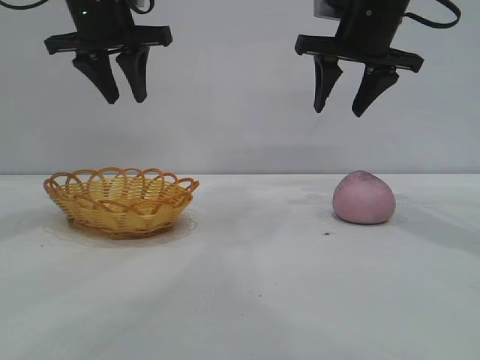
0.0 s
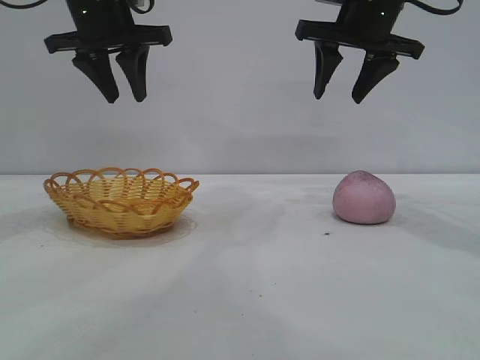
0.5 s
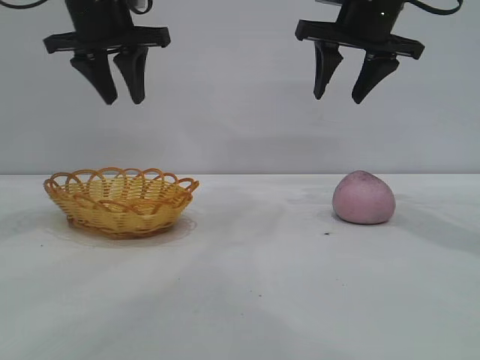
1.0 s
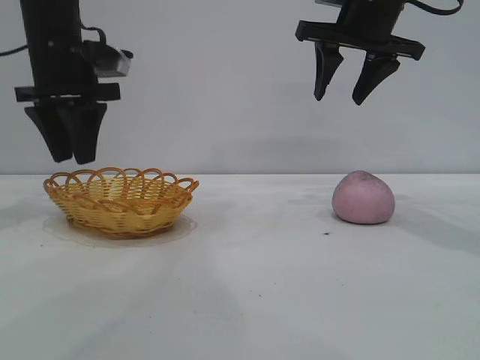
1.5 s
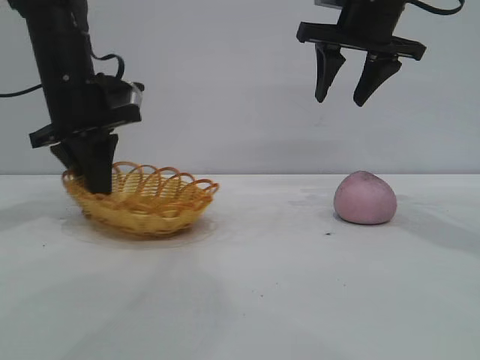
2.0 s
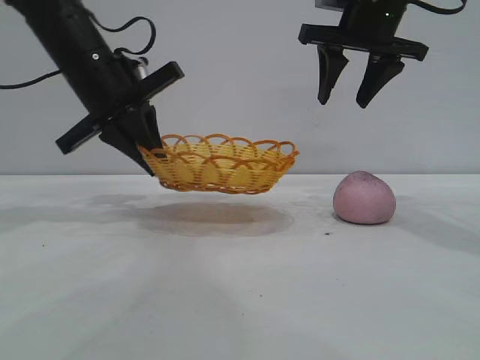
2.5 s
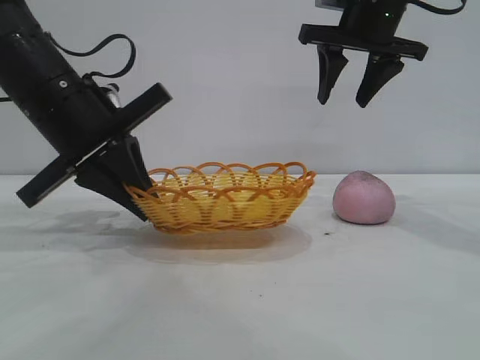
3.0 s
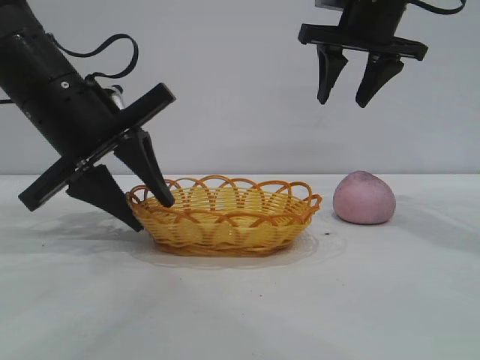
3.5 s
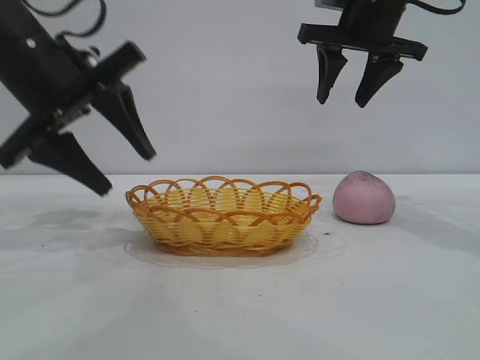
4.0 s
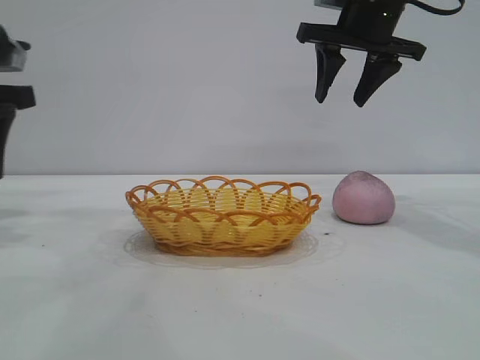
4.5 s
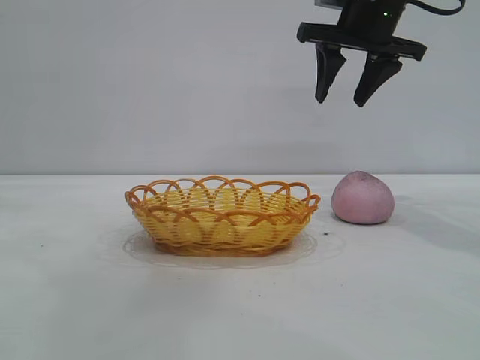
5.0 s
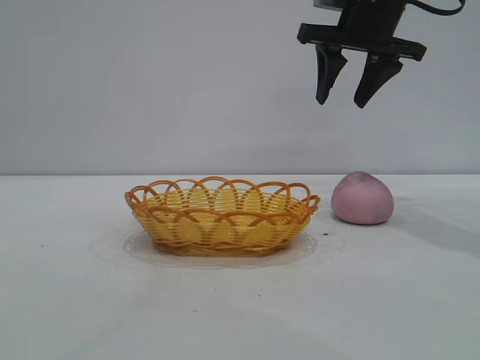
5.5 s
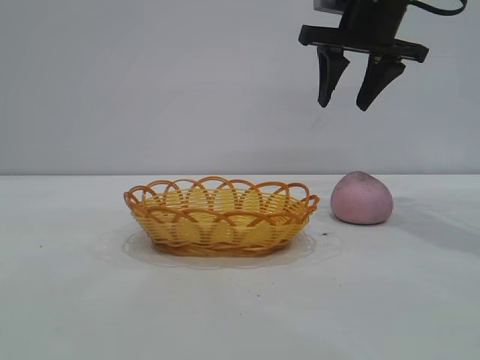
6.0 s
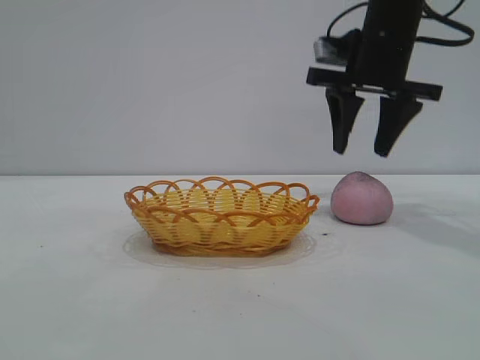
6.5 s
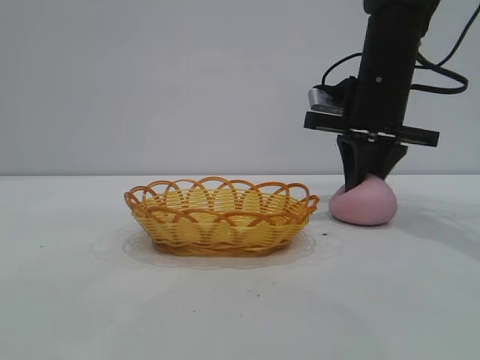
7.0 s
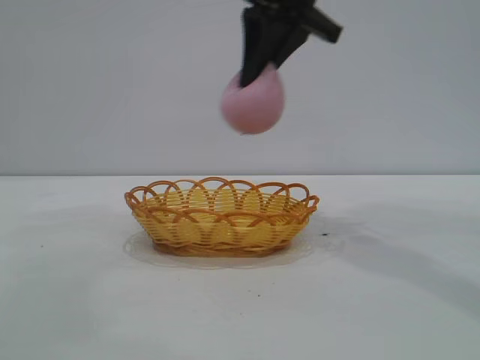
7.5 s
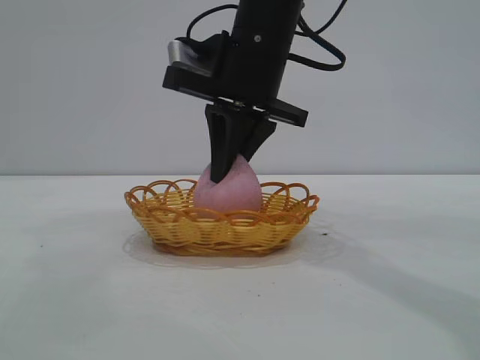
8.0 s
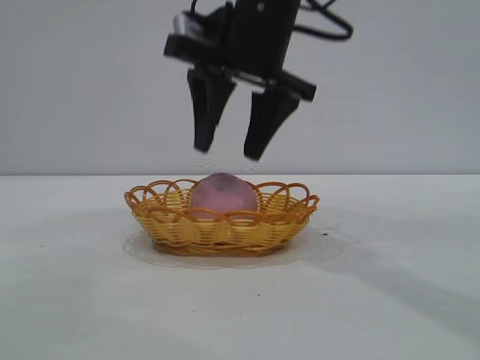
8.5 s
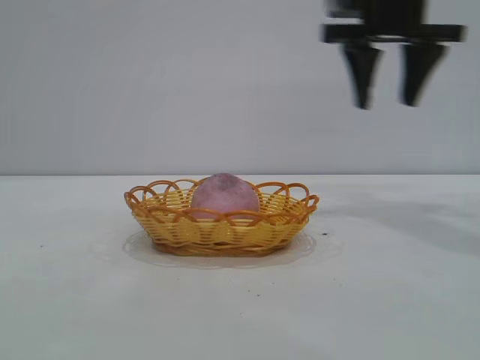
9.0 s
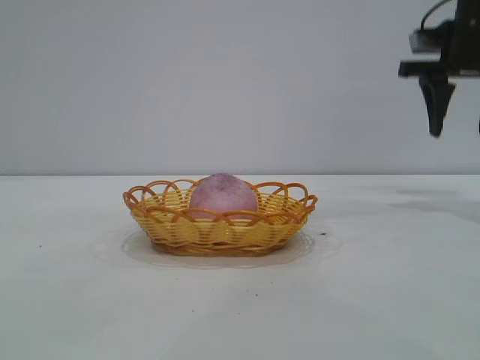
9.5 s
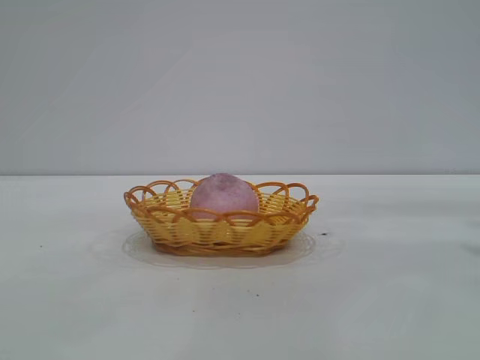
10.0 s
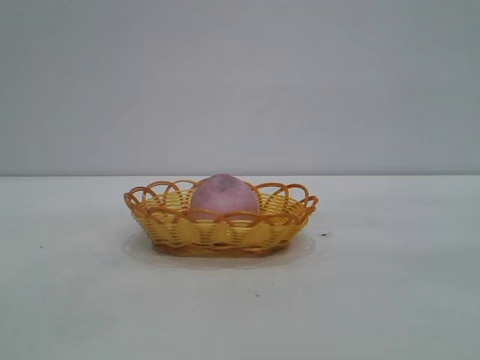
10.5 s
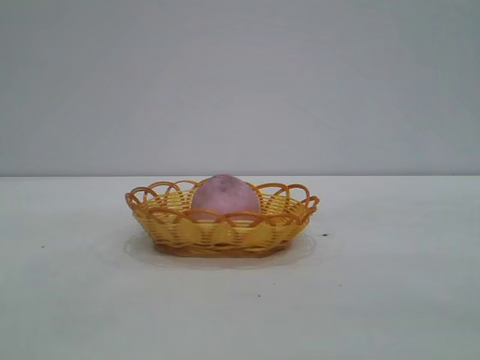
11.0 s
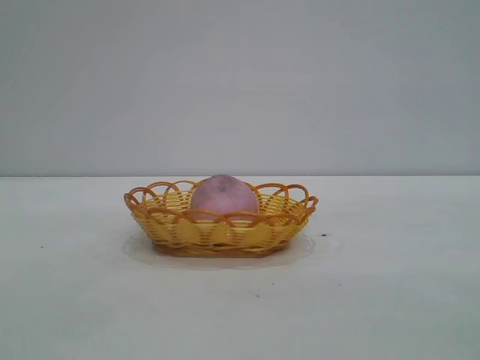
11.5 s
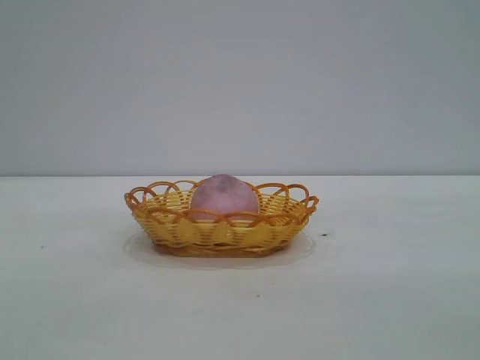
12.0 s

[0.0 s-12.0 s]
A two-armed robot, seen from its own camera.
Task of the whole recording: pick up the peach and put it into the basket.
Step, 0.0 to 3.5 s: Move the basket to the center of view.
Step, 4.5 to 7.0 s: Pick up the peach.
Step, 7.5 to 8.5 s: place the peach into the basket.

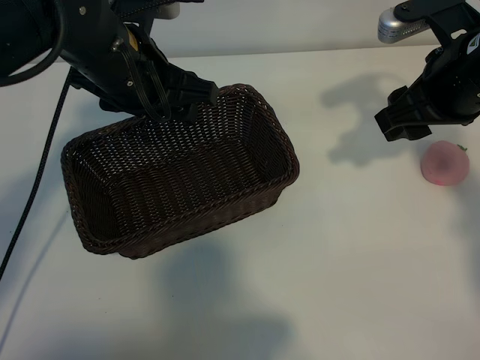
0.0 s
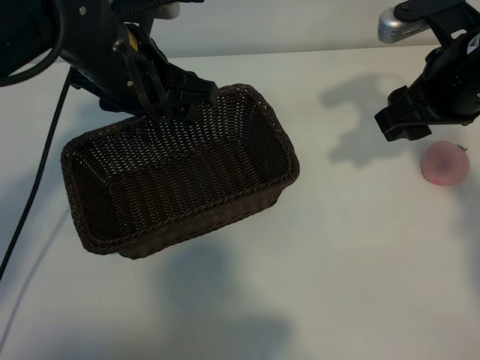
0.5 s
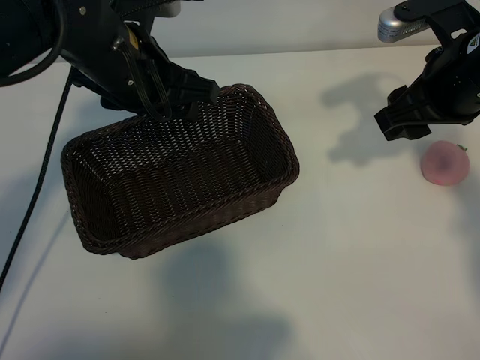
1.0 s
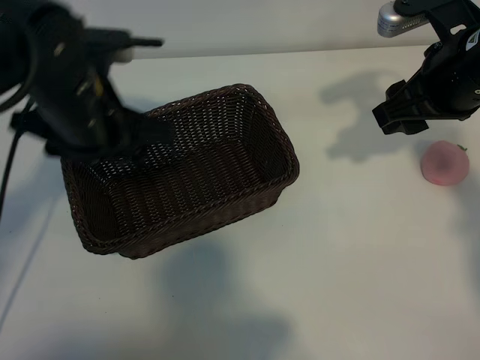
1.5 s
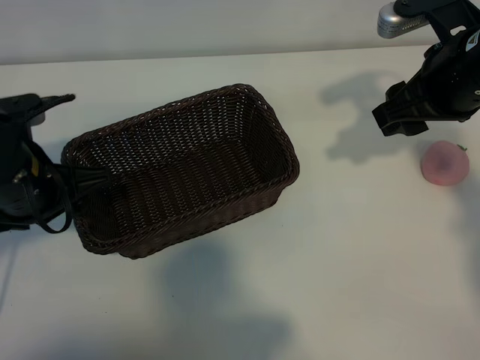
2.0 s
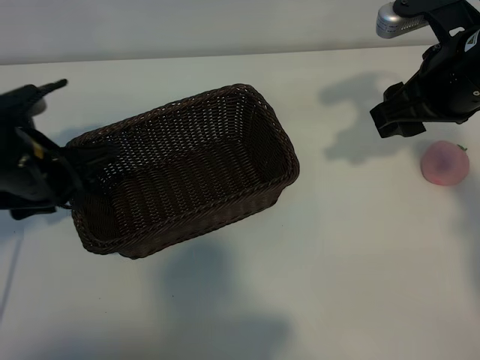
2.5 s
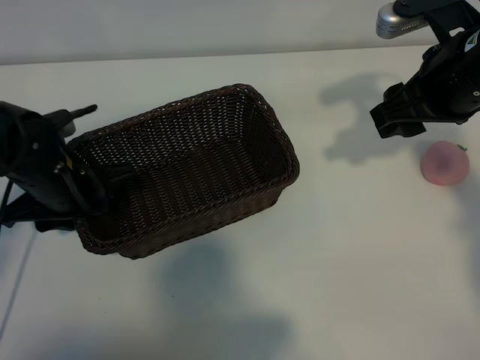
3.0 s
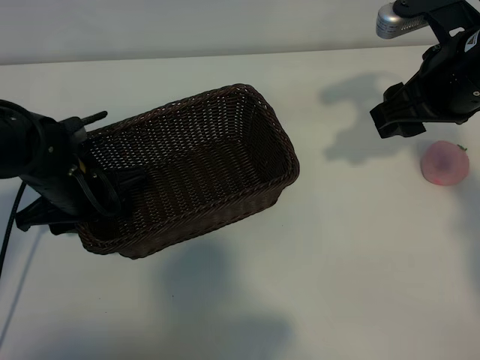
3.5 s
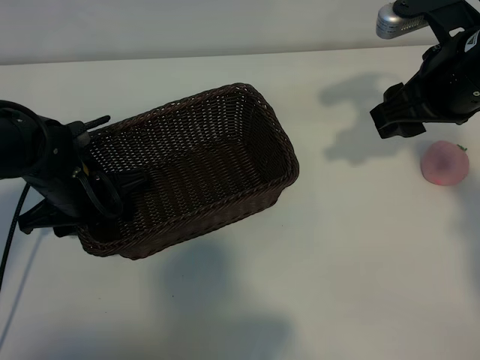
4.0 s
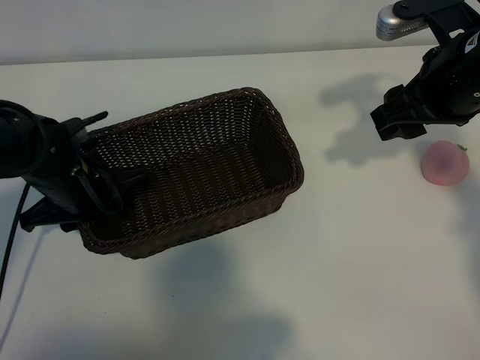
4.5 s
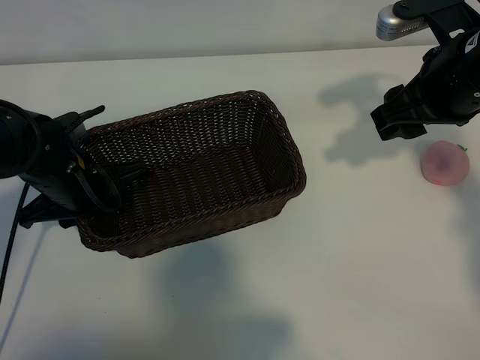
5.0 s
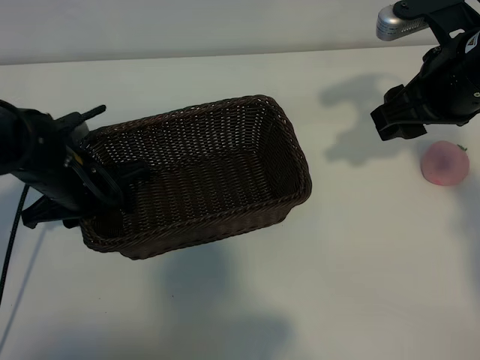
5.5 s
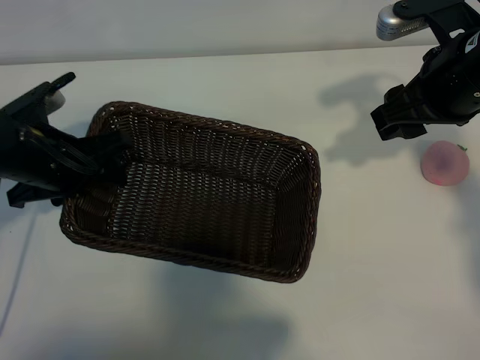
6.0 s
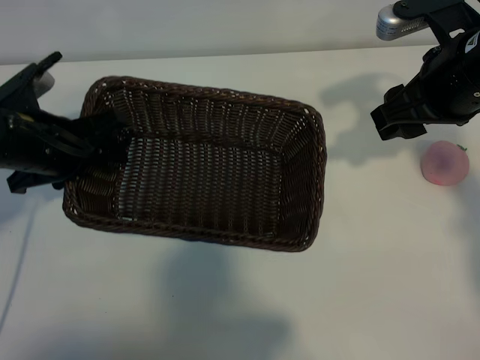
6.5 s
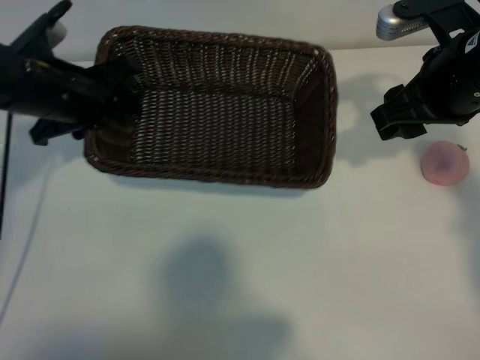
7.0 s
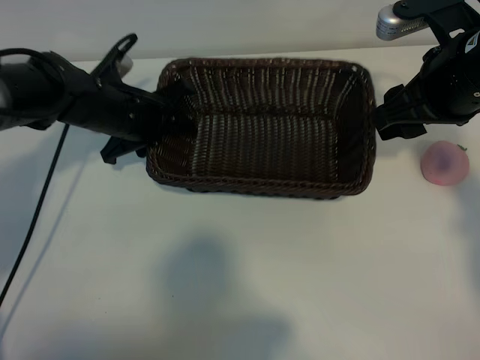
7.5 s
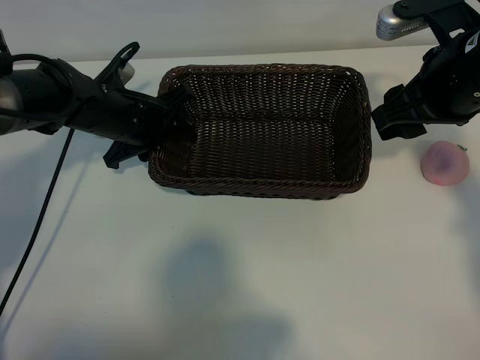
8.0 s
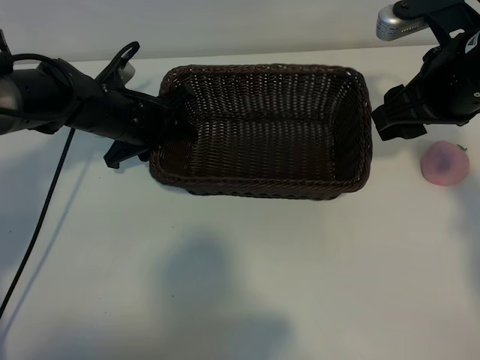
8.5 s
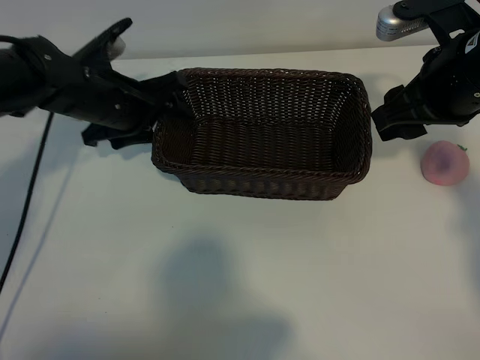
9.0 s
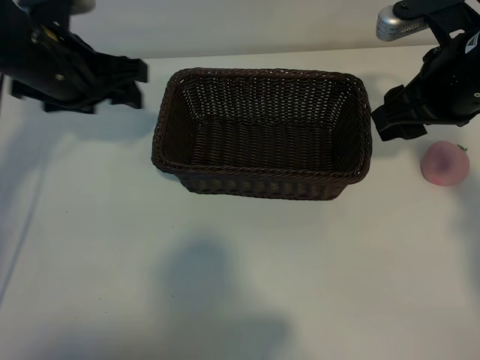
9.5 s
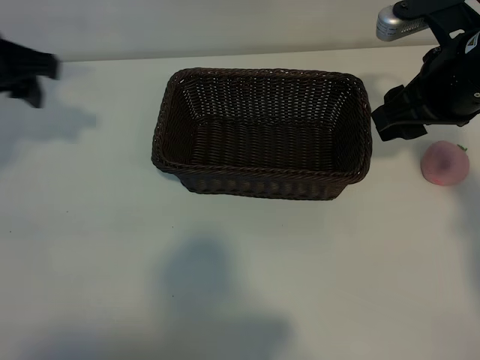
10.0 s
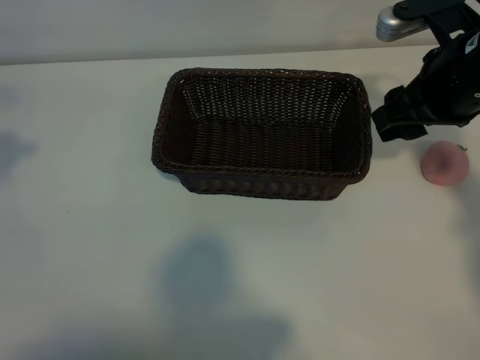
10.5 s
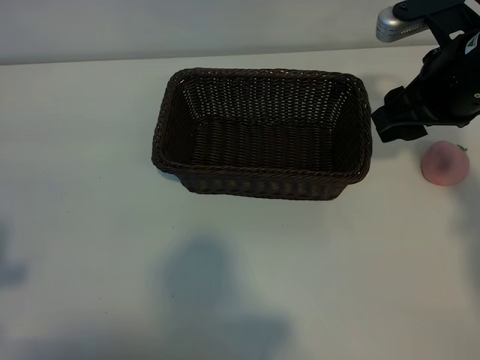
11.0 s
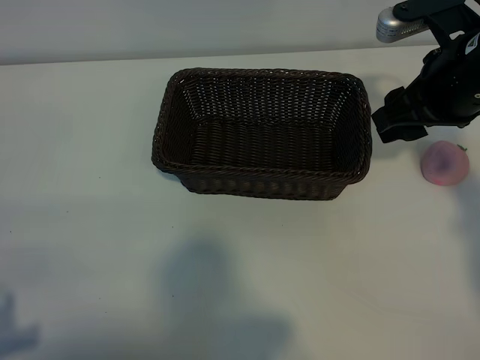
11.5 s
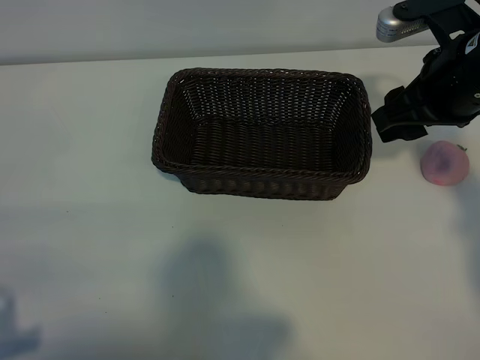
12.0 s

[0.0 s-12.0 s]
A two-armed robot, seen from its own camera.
Task of the whole recording: pick up the peach and put it into the basket.
Step, 1.0 to 4.5 s: Grasp the basket with left gripper.
Step, 5.0 to 9.0 s: Place the basket in the center of view with left gripper.

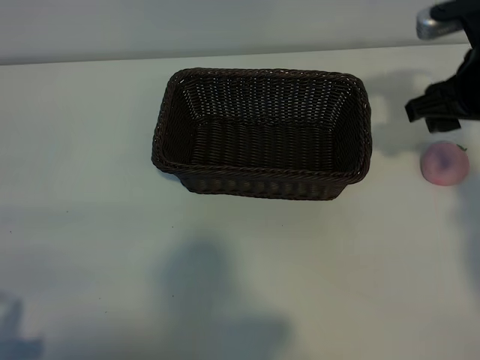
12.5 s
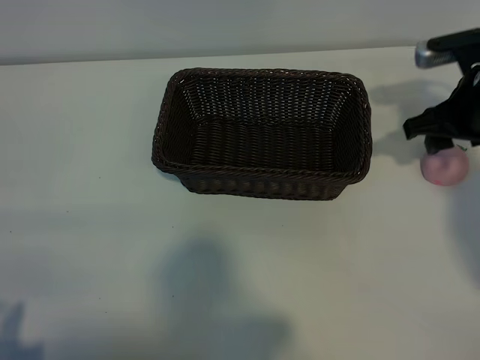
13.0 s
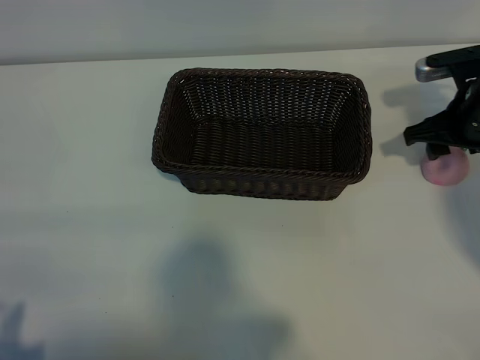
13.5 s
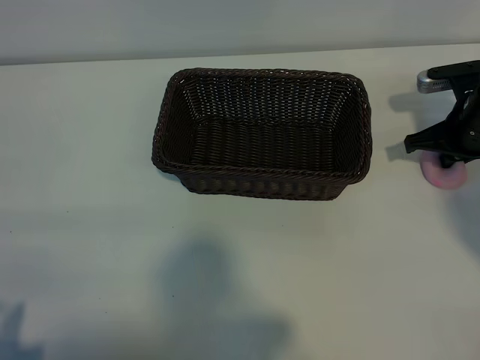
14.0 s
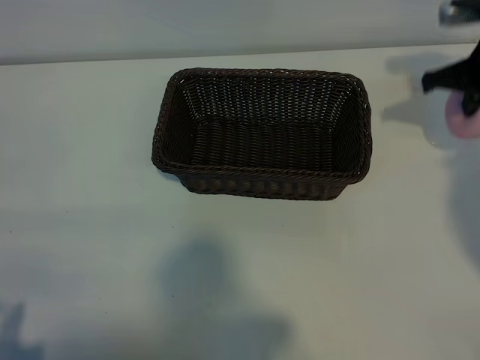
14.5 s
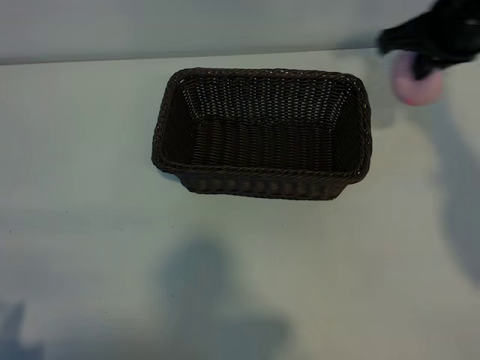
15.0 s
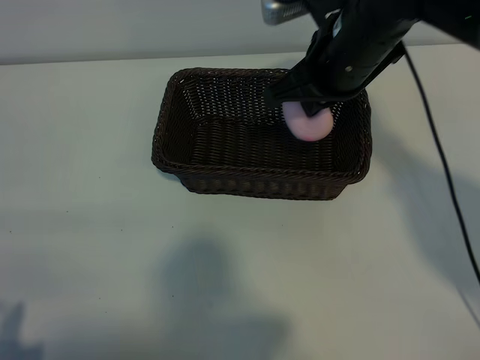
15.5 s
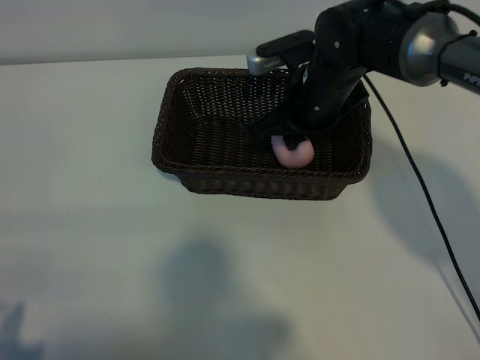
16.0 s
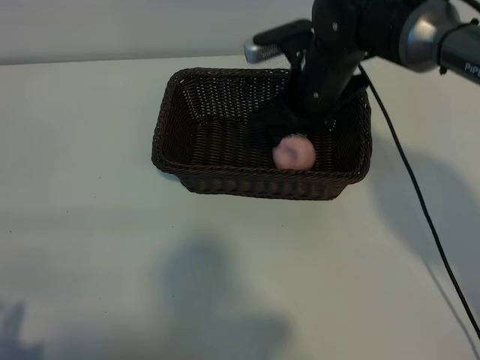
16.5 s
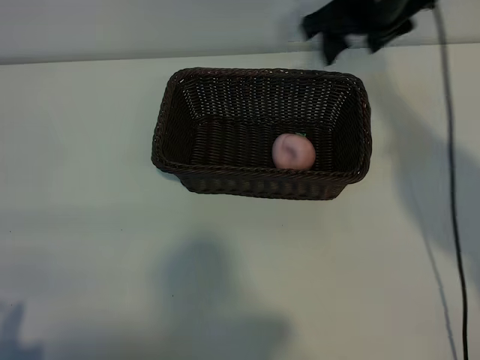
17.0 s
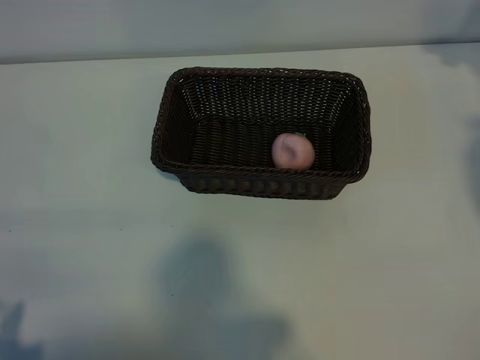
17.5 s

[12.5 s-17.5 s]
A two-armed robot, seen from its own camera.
Task of the whole recording: pick up the peach and put it into the basket.
Step, 14.5 to 16.5 s: Place the peach in the basket with right gripper.
